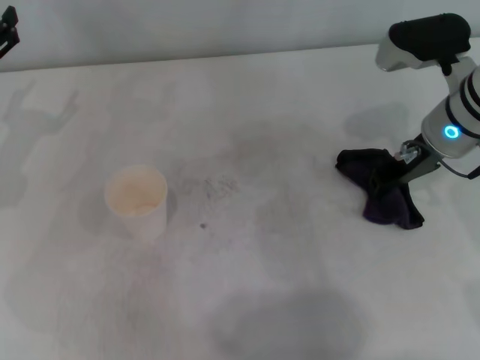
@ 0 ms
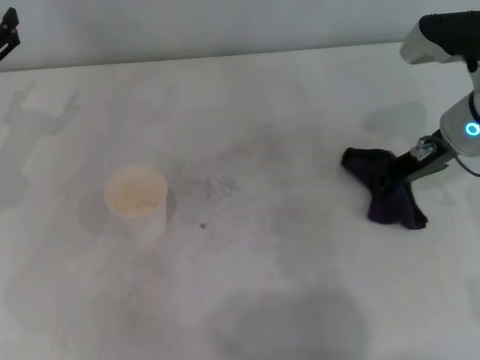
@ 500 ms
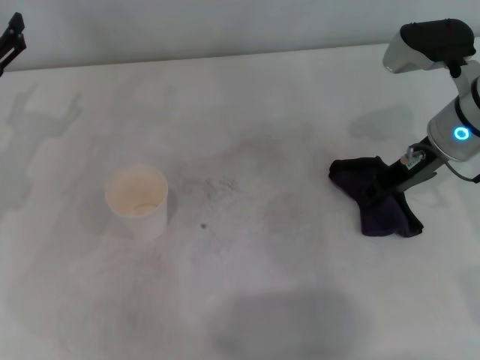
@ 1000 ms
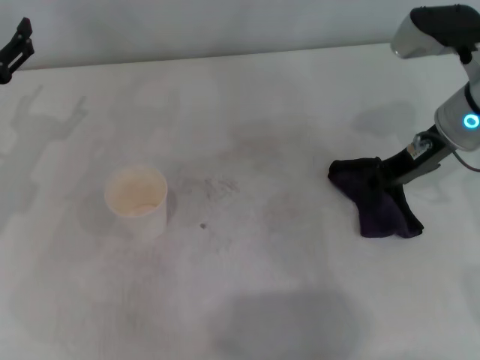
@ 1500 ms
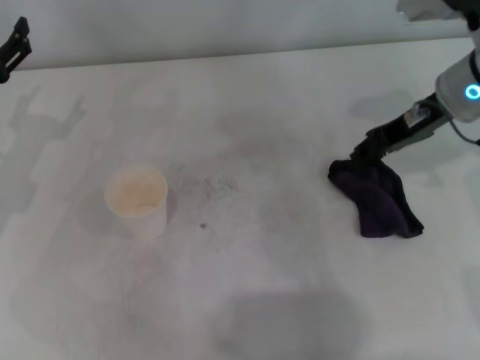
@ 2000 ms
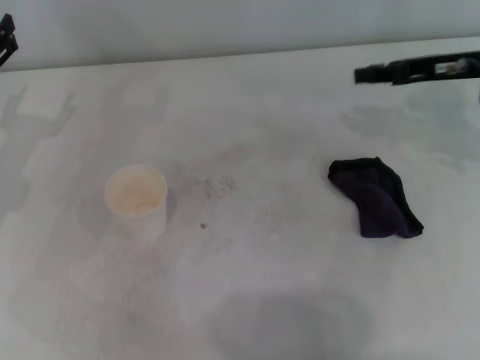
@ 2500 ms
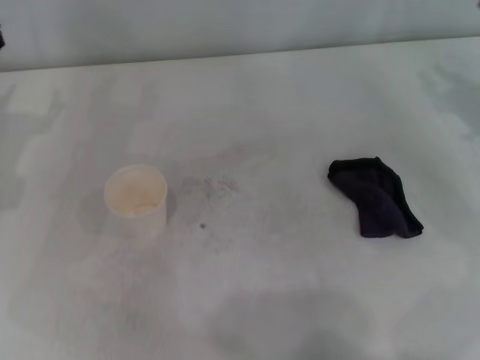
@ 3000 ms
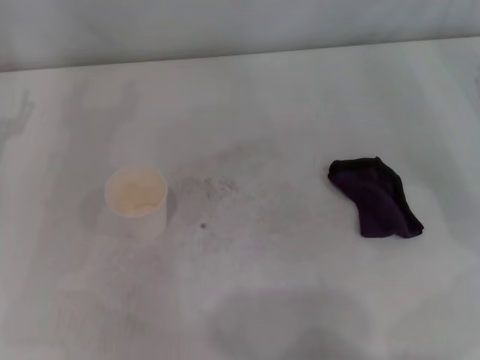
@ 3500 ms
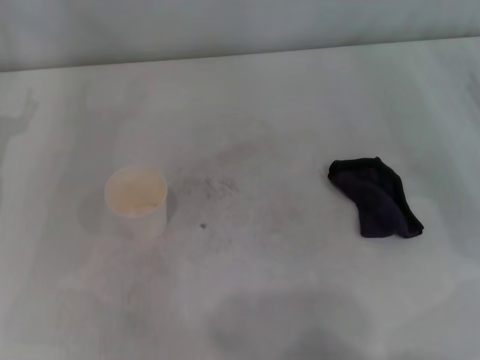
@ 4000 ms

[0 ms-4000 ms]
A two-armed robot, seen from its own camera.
0 ms to 2000 ms: The grippers move only a little.
2000 ms to 4000 ms: The right gripper heads to the right, downward and backward, covering about 15 cm, and opens.
